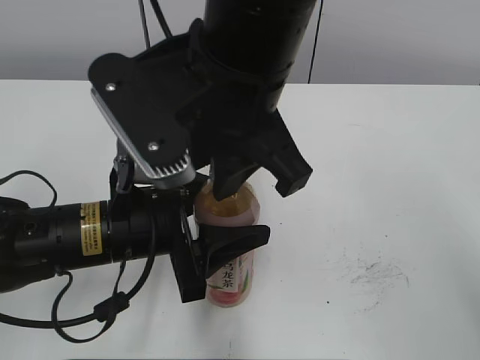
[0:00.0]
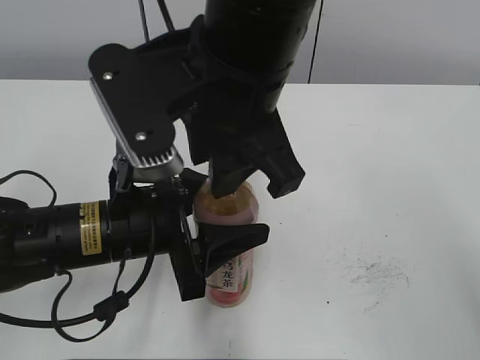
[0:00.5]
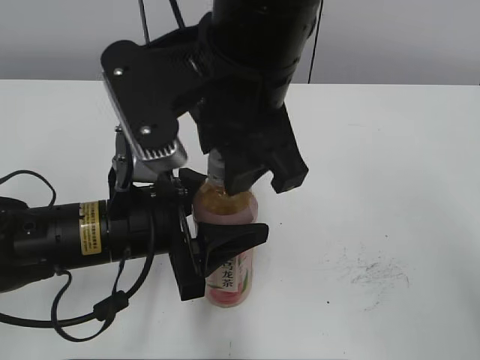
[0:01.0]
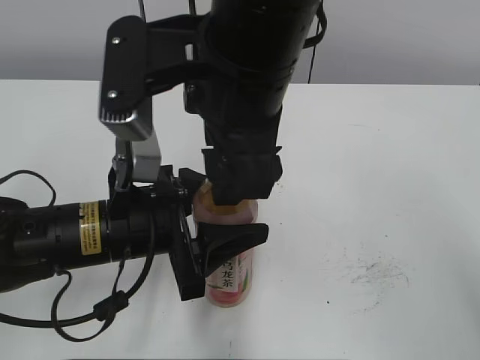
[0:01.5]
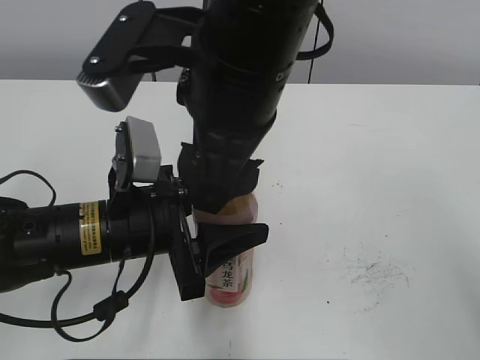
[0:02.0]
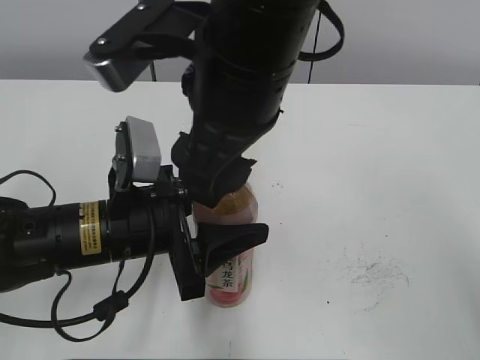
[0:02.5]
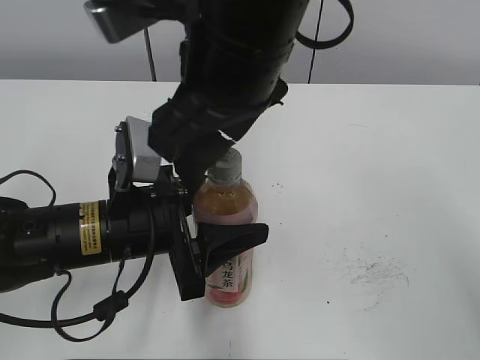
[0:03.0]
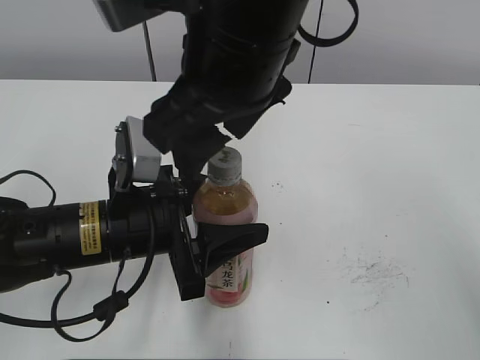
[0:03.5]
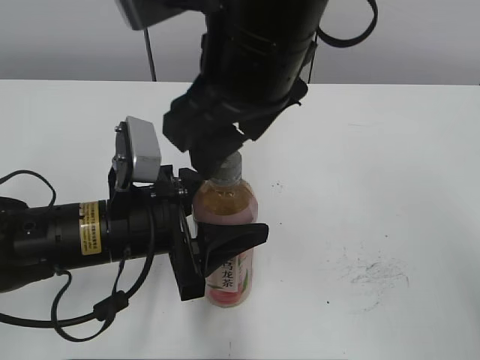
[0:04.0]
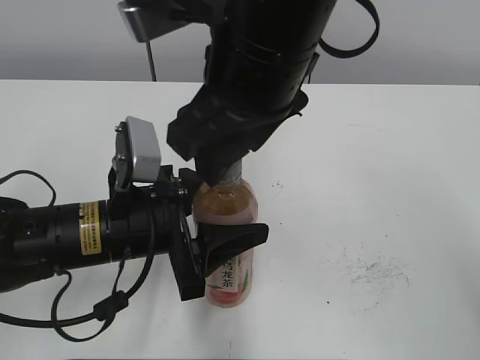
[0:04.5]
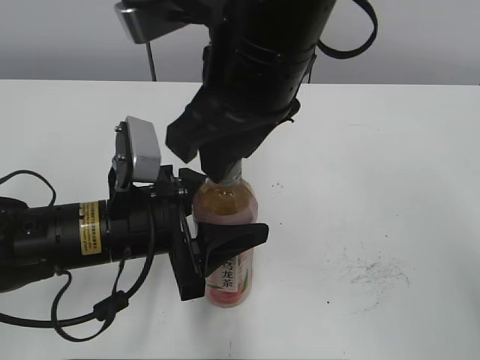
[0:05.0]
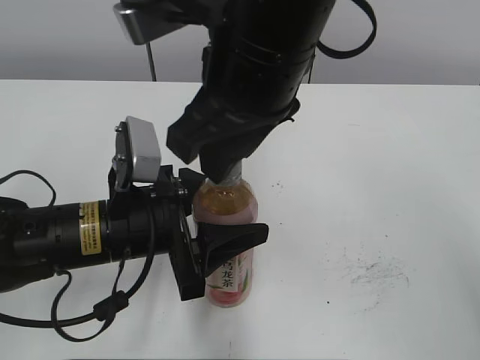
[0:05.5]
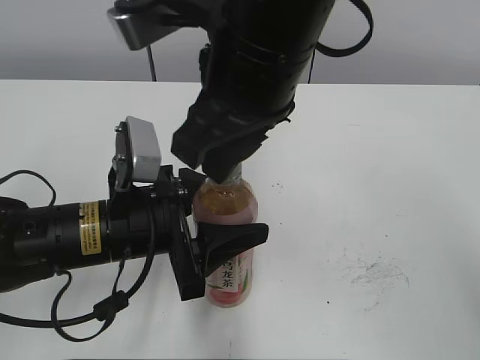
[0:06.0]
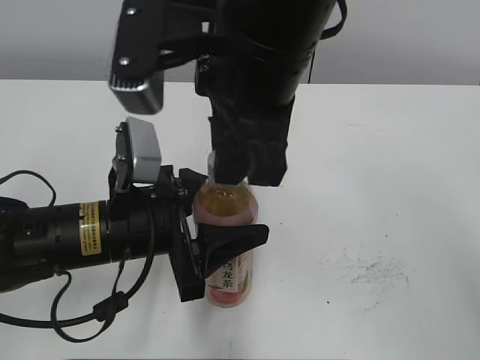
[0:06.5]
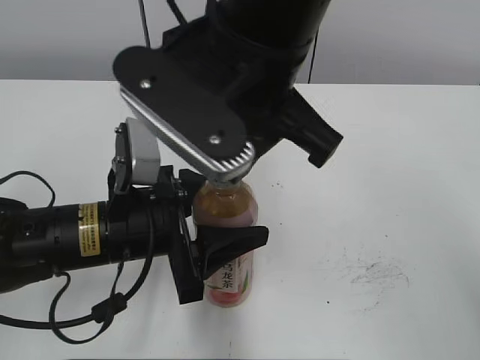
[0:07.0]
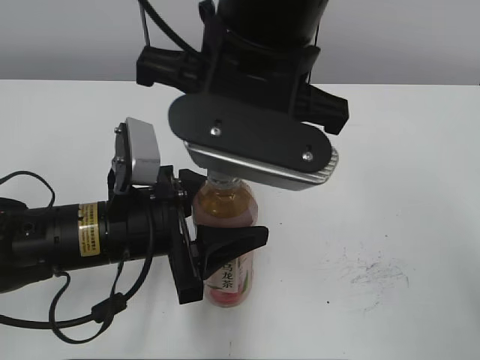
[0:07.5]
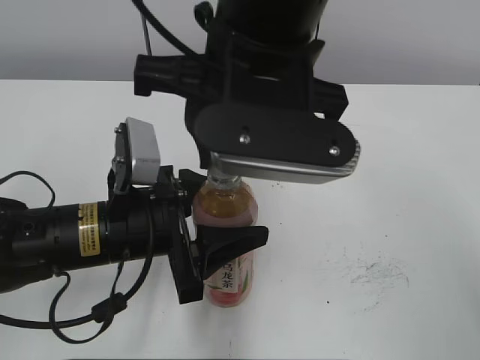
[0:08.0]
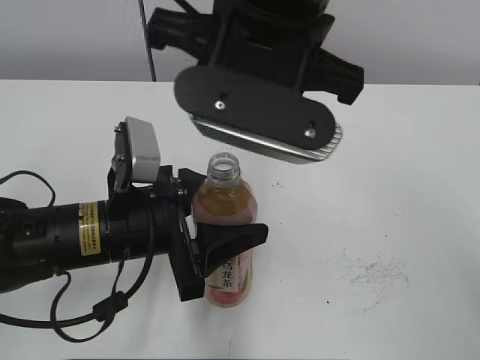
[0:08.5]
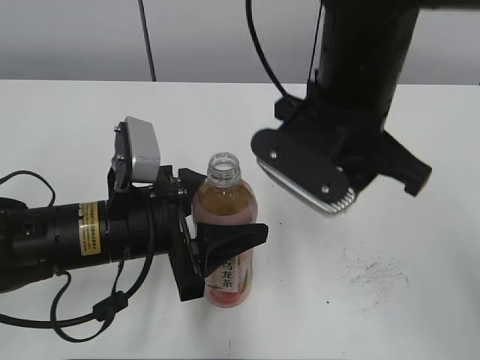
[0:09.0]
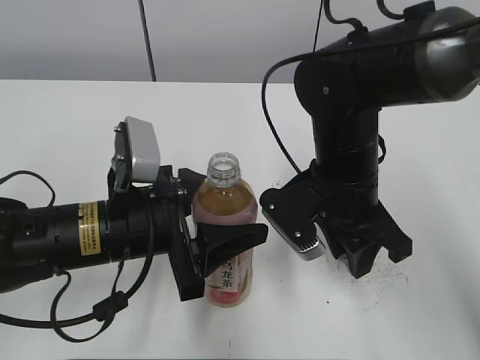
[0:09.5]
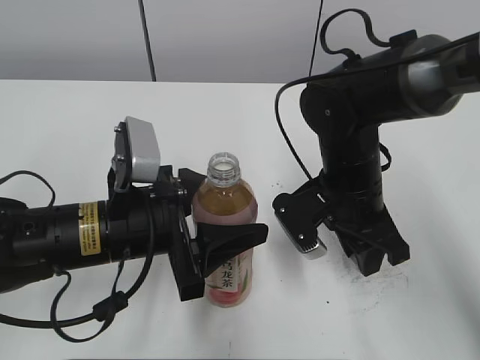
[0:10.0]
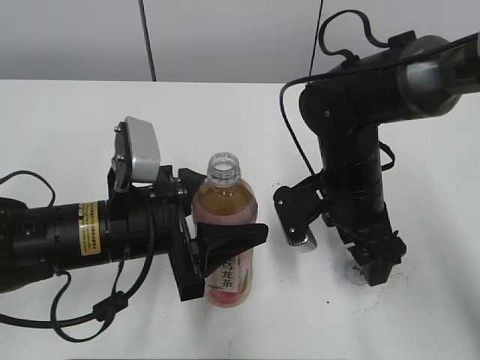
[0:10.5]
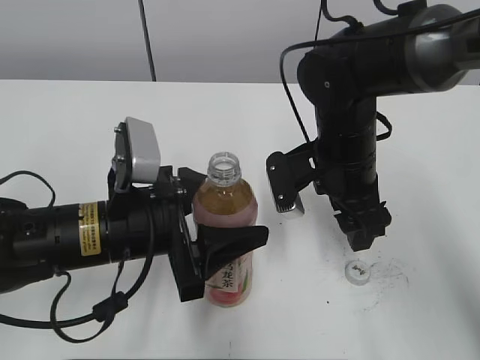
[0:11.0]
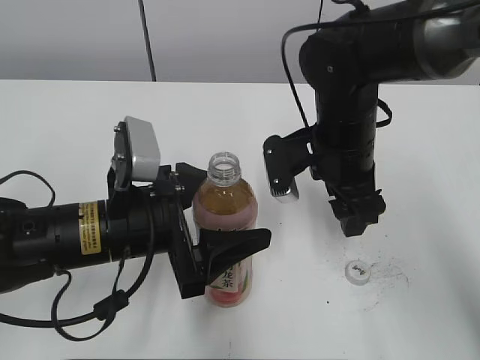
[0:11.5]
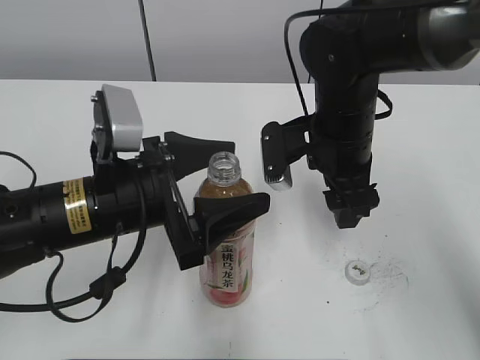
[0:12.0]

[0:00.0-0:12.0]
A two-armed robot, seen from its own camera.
Step, 0:08.5 to 0:10.0: Place the bottle cap on the right.
0:00.0 to 0:02.0: The right gripper opens up.
0:04.0 to 0:06.0: The right gripper closes its fingers.
0:08.0 to 0:10.0: The right gripper goes approximately 25 cm downward and to the right.
0:10.0 to 0:12.0: The left gripper opens its fingers. The right gripper moves approximately 5 cm, and opens.

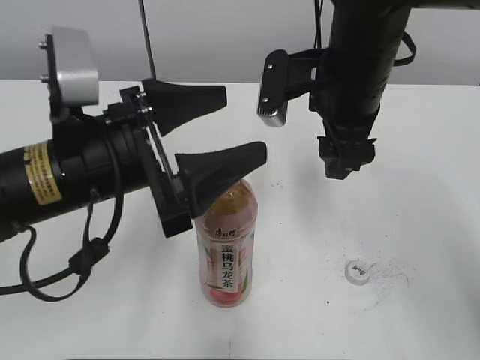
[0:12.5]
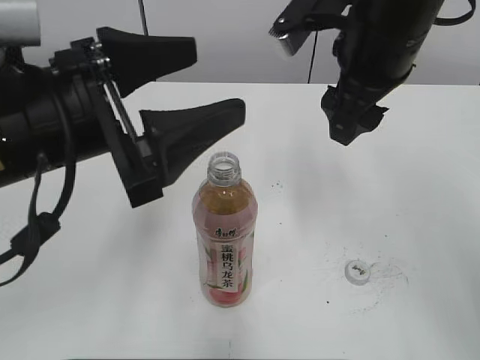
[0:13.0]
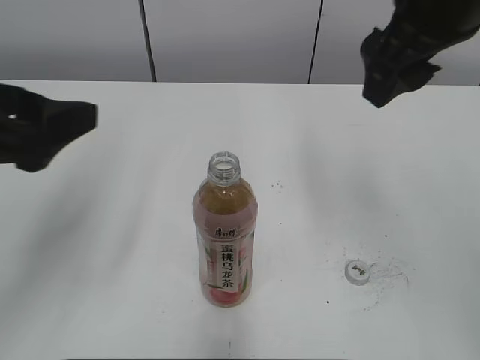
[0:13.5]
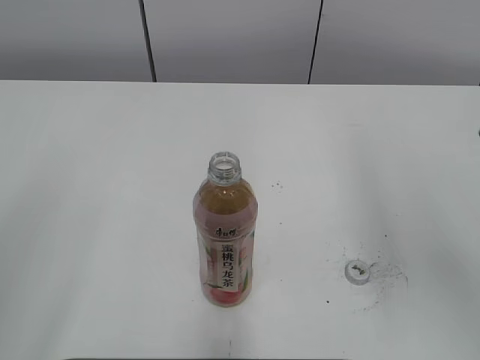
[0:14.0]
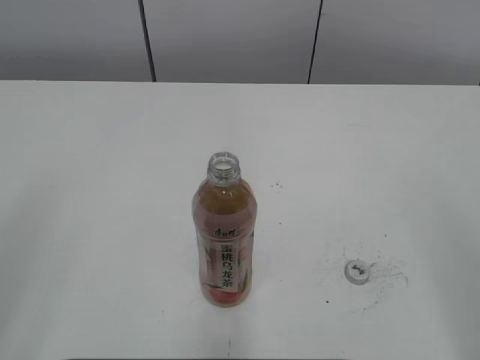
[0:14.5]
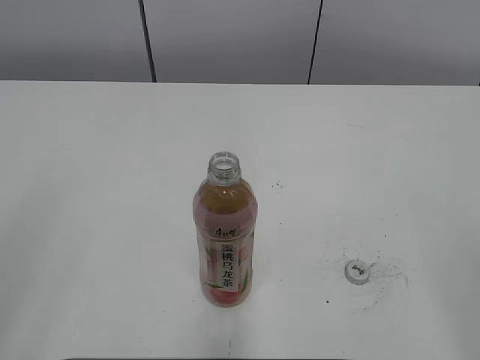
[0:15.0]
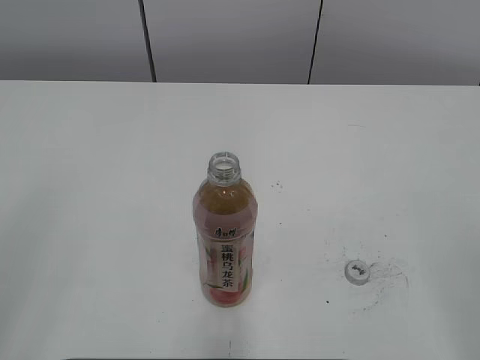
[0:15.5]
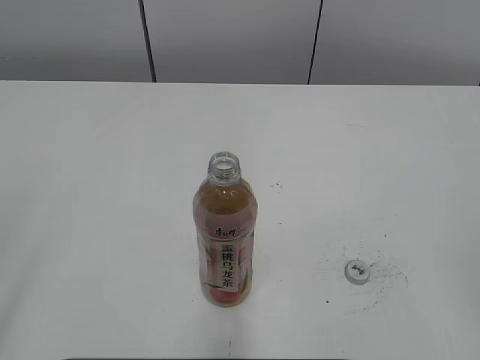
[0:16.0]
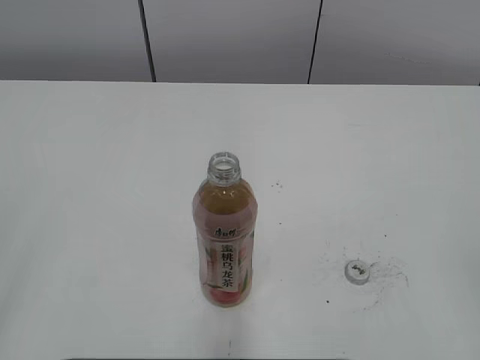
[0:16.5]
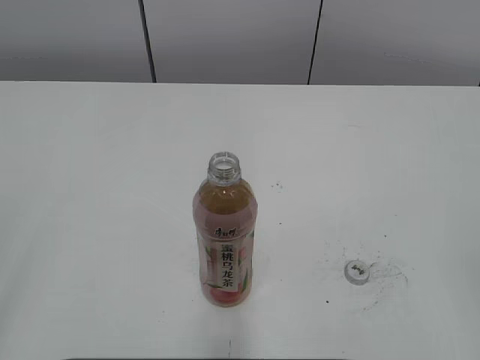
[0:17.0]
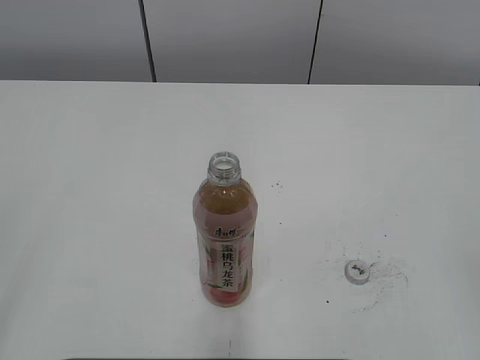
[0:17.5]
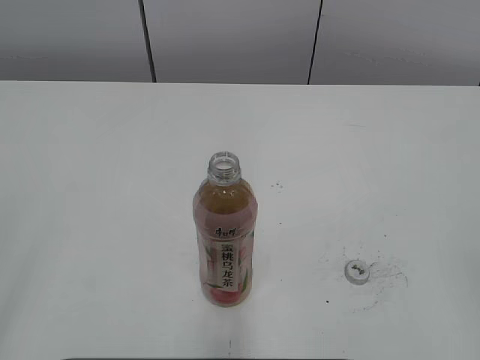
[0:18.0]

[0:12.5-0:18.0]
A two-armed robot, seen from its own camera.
0:12.5 to 0:14.5: The right gripper heads backward and to the right, covering approximately 35 cm, while the left gripper goes some 25 cm backward, to the left and upward.

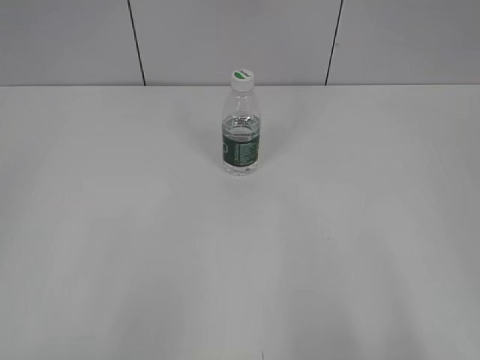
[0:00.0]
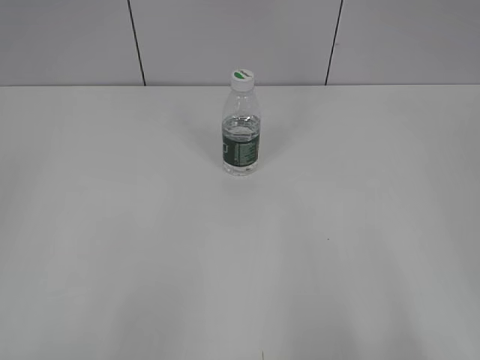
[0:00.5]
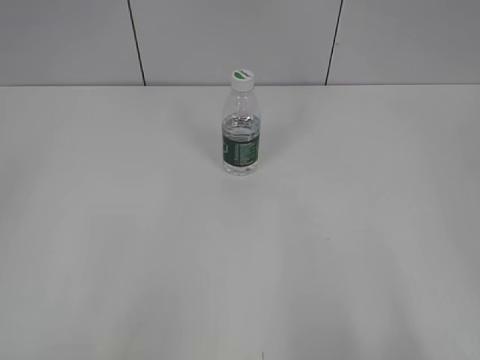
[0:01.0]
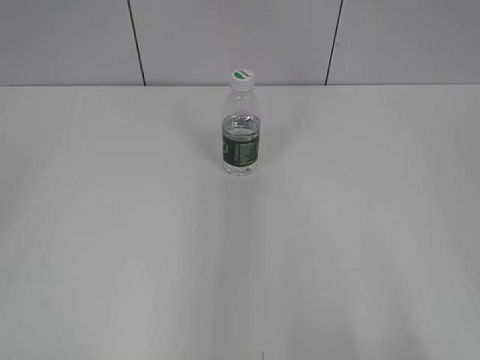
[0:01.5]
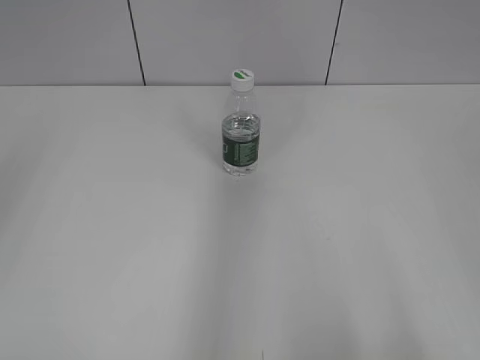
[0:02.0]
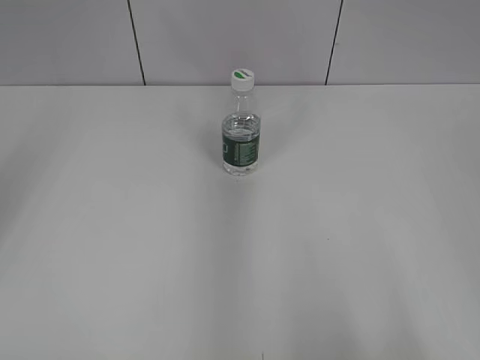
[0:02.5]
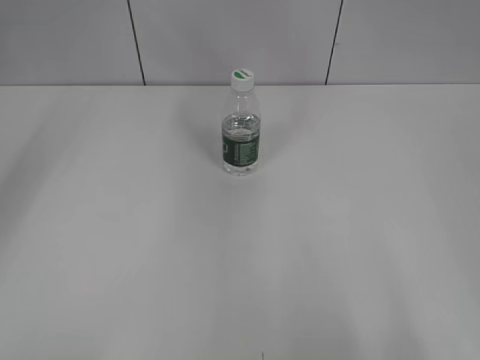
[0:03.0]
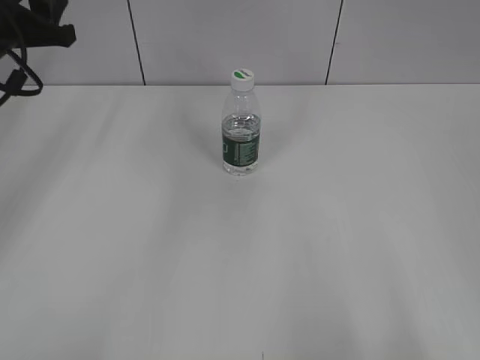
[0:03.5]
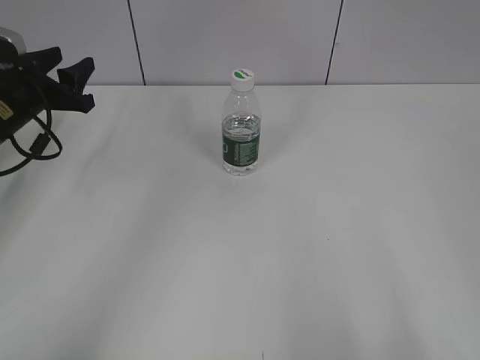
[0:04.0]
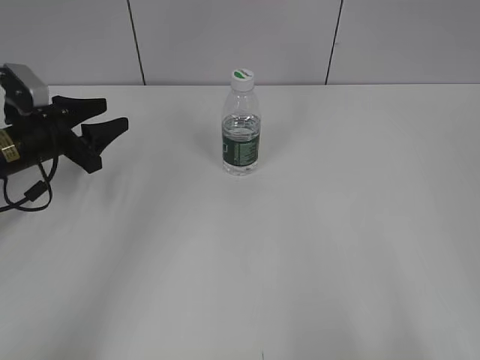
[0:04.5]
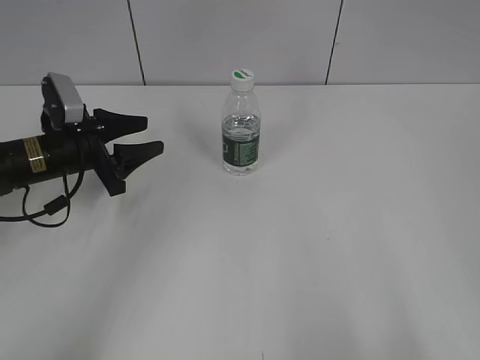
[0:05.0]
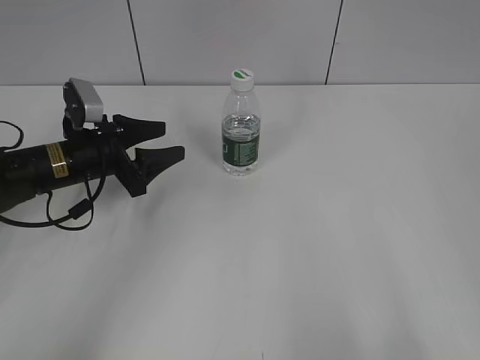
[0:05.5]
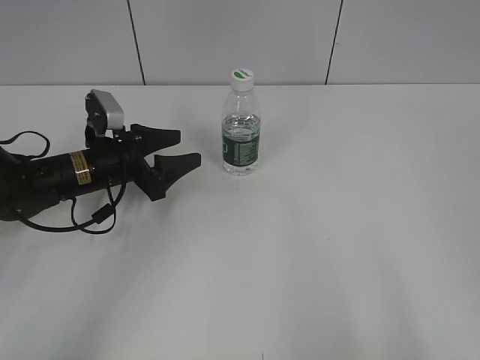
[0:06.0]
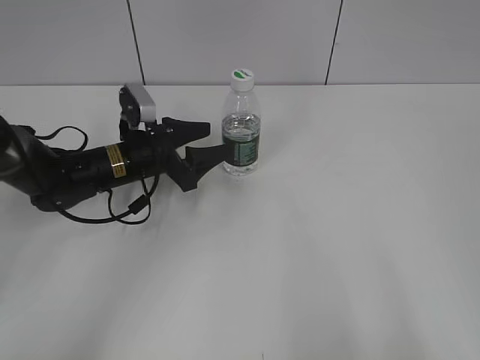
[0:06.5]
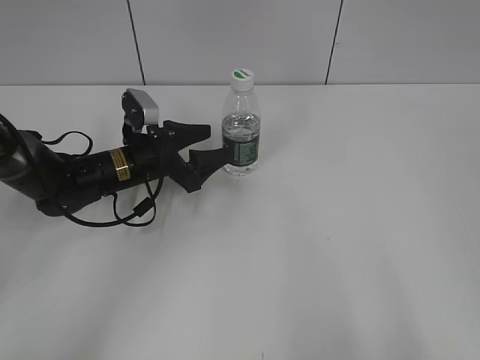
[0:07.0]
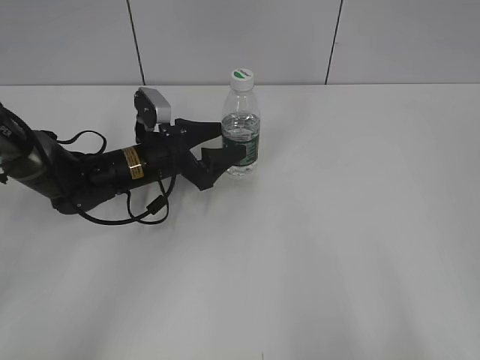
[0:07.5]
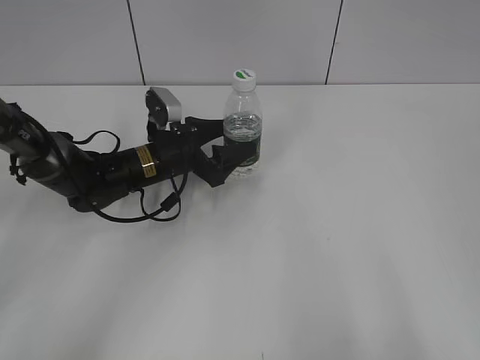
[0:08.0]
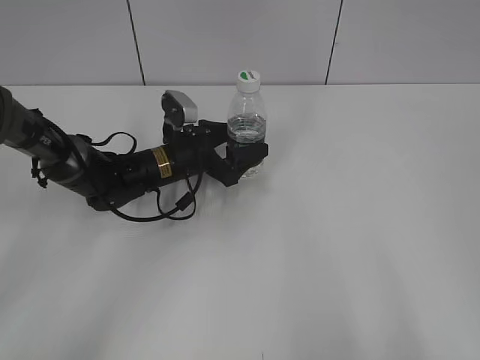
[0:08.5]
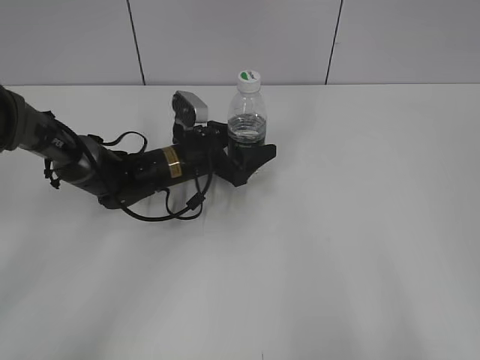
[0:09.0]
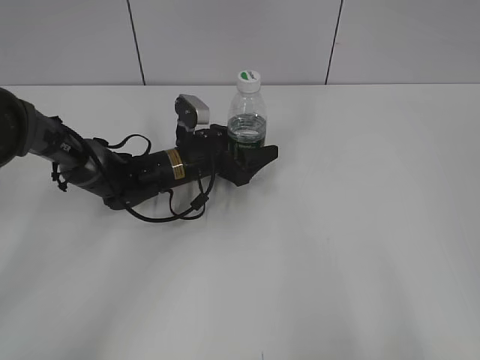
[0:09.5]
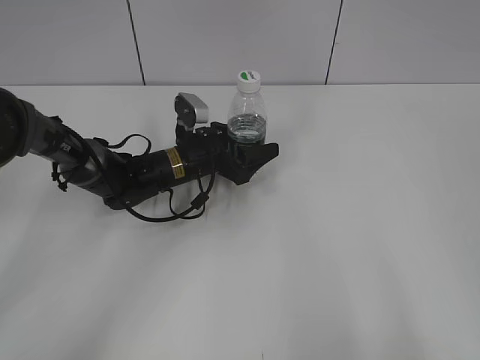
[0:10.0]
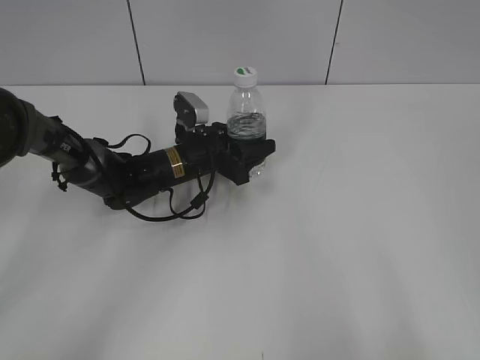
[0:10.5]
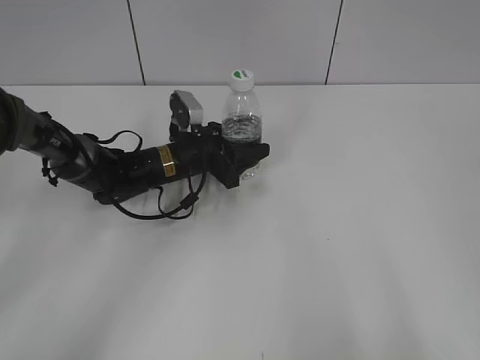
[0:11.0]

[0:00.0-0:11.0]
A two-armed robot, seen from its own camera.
Step, 0:00.0 to 0:10.5: Grasp the bottle and move it to the center of the table with the left gripper.
0:02.0 to 0:03.5: The left gripper heads forward and downward, covering some 35 cm.
0:03.5 to 0:05.5: The left gripper heads downward and to the right, covering about 15 cm.
0:05.5 to 0:07.5: The left gripper is displaced to the right by about 10 cm, and opens its fingers.
0:07.5 to 0:09.0: The left gripper moves roughly 5 cm.
0:09.0 to 0:11.0: The left gripper closes up.
